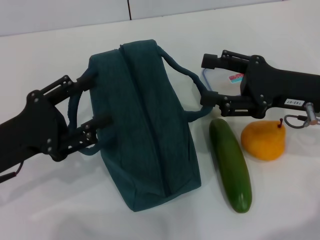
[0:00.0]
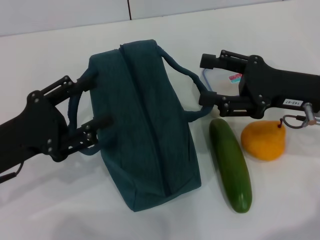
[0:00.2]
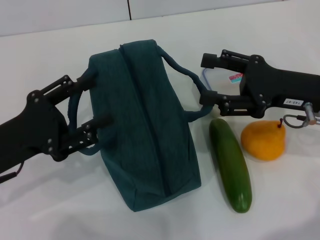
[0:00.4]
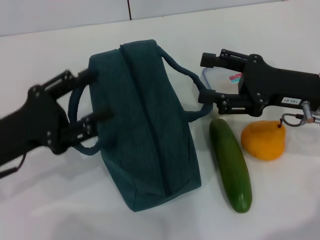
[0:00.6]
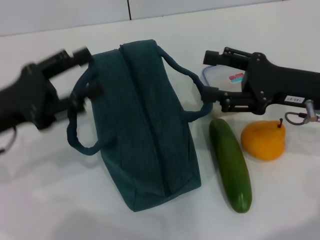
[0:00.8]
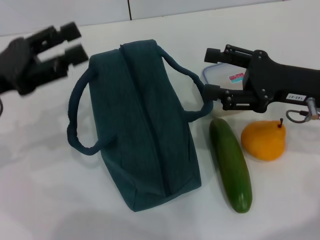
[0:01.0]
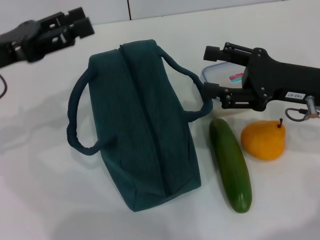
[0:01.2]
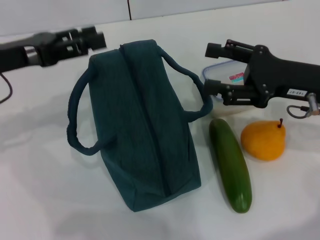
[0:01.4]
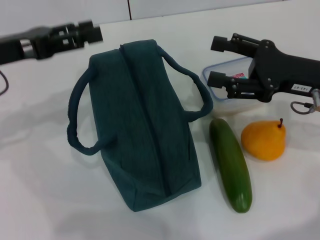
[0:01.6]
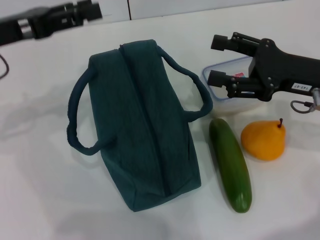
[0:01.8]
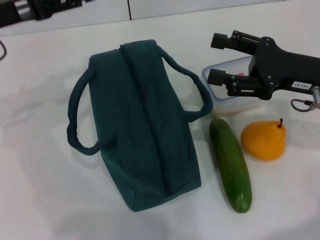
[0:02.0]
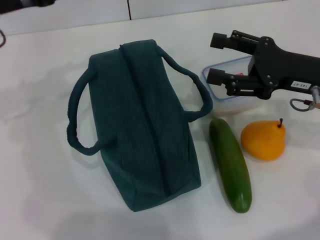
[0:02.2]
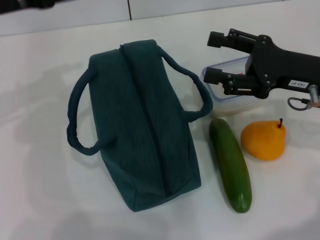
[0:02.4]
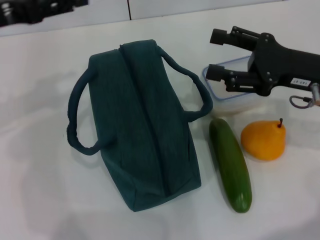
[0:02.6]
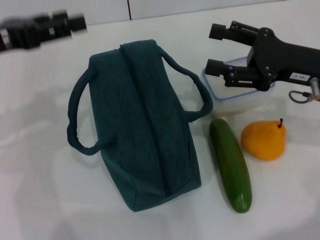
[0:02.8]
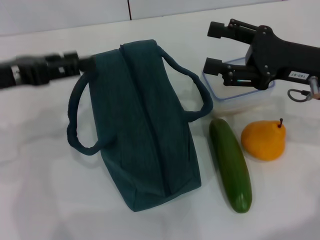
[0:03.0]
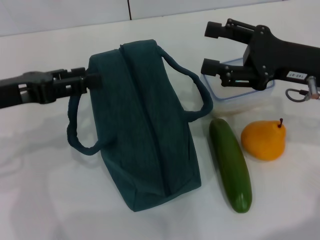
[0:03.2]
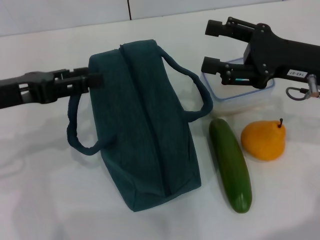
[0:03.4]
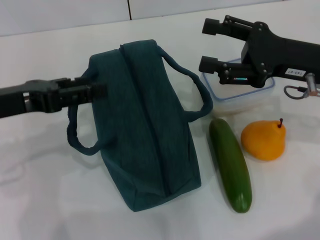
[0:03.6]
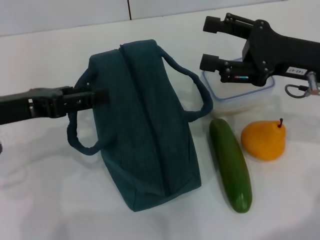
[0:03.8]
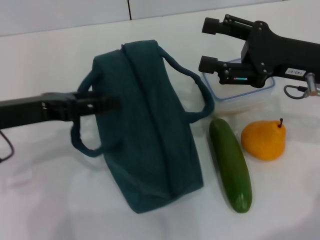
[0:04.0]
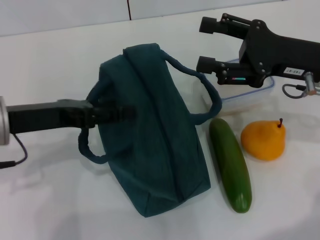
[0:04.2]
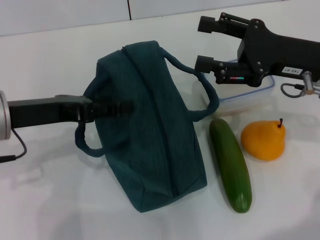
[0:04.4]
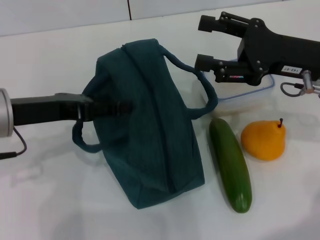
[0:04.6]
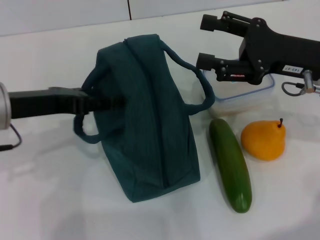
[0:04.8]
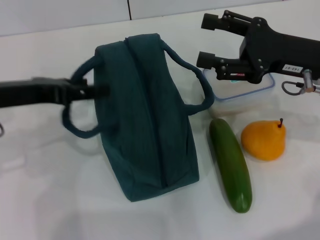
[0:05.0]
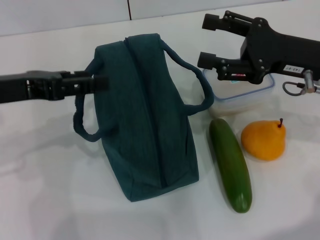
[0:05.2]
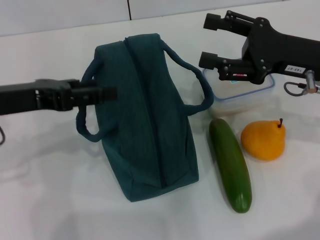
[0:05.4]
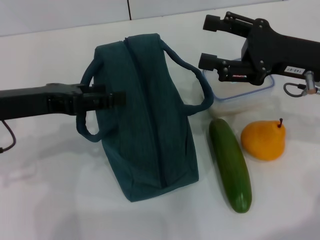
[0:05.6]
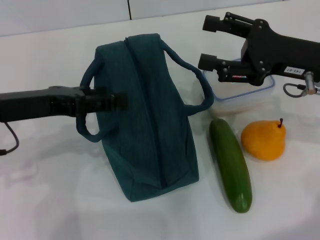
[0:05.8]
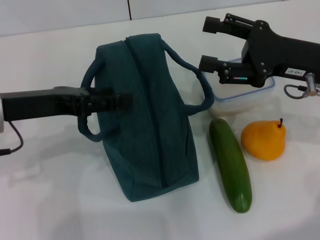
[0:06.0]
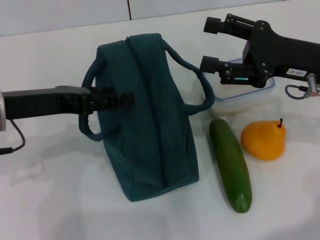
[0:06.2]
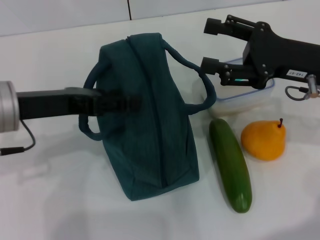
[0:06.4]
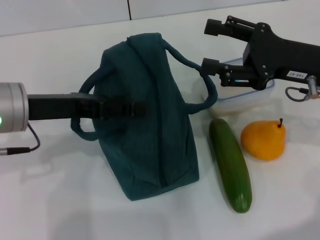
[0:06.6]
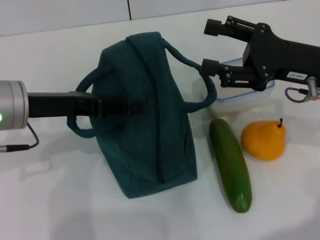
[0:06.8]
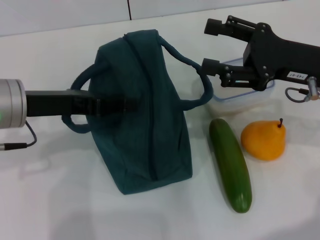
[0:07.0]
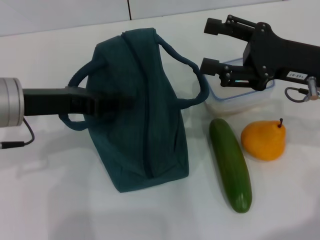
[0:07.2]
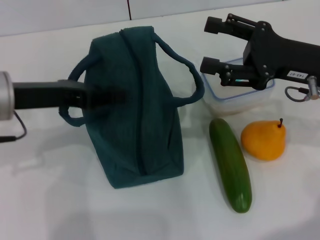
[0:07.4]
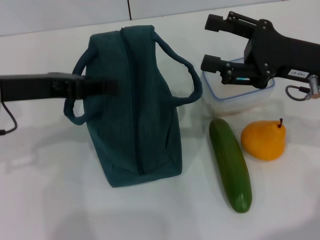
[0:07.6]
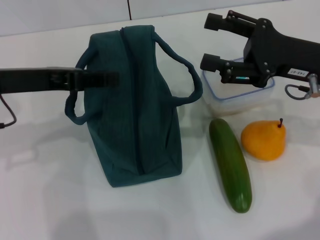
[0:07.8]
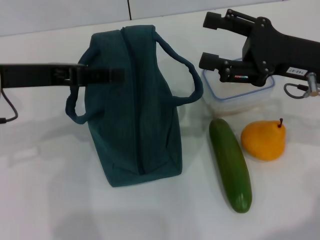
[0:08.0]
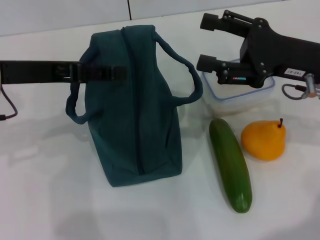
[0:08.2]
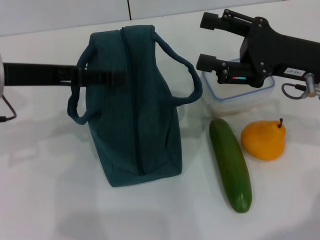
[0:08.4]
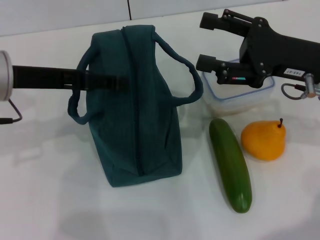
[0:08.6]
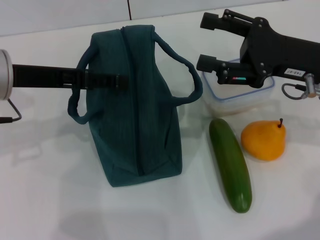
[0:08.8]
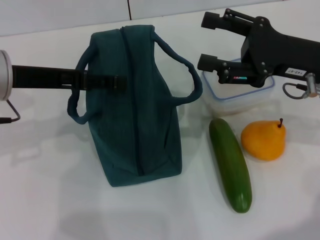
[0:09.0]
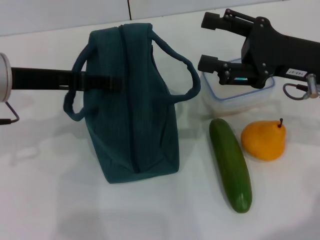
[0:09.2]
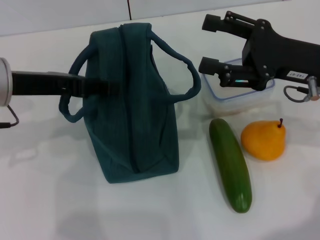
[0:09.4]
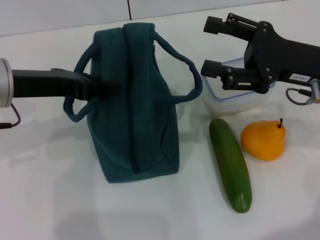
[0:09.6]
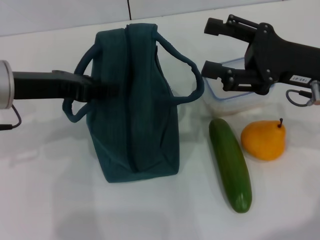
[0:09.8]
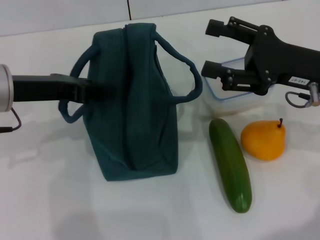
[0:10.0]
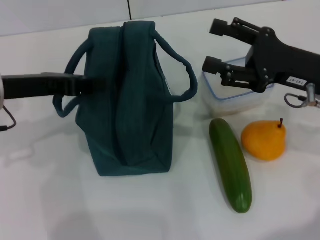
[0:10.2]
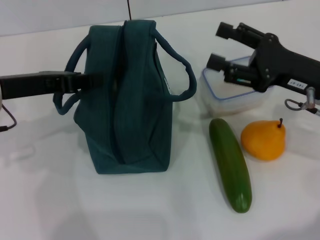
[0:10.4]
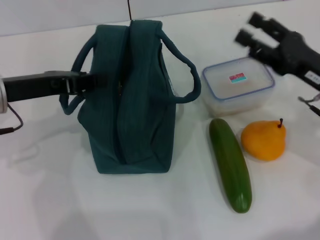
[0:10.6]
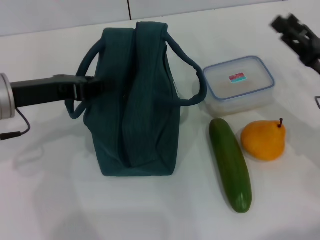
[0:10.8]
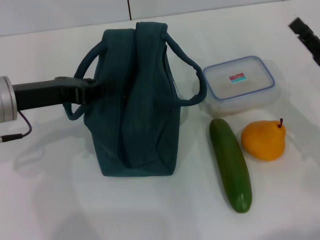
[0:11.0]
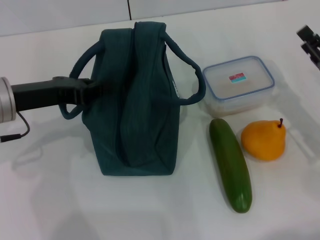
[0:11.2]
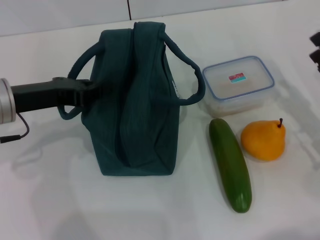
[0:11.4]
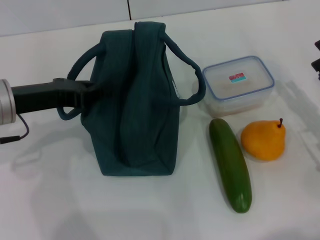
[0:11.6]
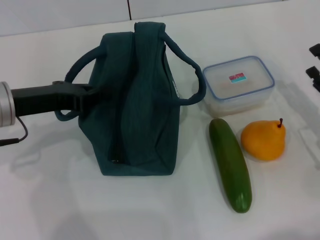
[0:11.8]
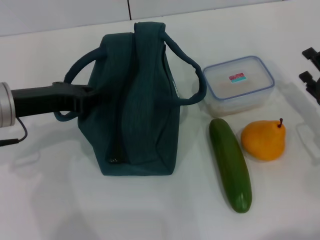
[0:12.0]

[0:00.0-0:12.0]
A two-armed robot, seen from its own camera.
Step, 0:00.0 to 0:10.2: Hold the lunch bag with your left hand.
0:00.0 to 0:01.6: The left gripper heads forward and upward, covering approximately 15 cm.
0:01.6 to 0:03.0: The grippers make only small movements.
0:03.0 to 0:04.4: The left gripper moves approximately 5 cm.
0:04.4 to 0:06.0: There are only small adjustments of the grippers.
0:06.0 to 0:07.6: The left gripper closes up.
0:07.6 to 0:09.0: The left gripper opens.
0:09.0 to 0:10.4: The left gripper closes its fingers.
0:10.4 to 0:12.0: The right gripper travels downward and to the right by roughly 10 cm.

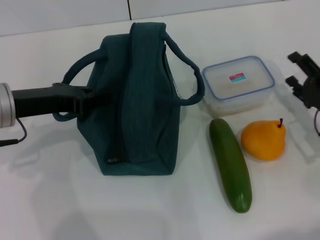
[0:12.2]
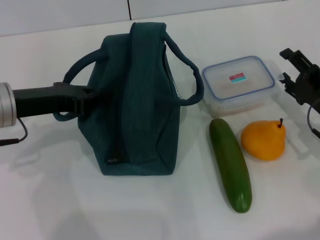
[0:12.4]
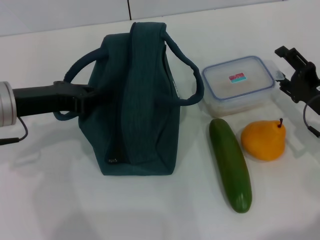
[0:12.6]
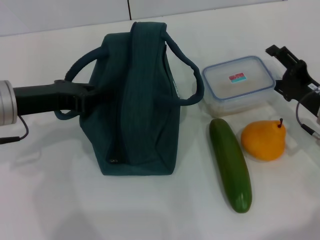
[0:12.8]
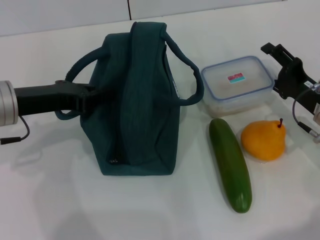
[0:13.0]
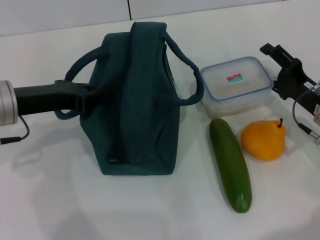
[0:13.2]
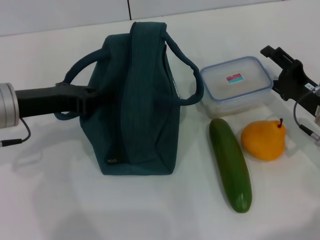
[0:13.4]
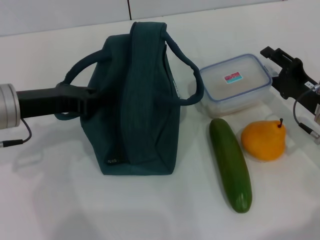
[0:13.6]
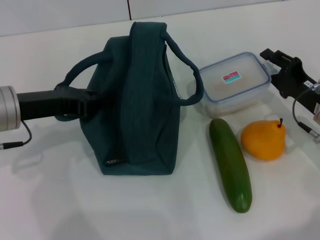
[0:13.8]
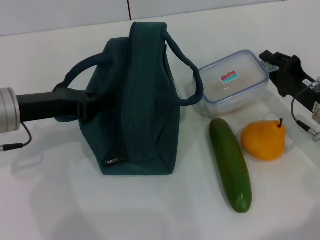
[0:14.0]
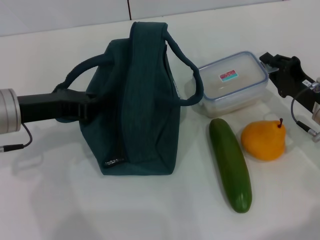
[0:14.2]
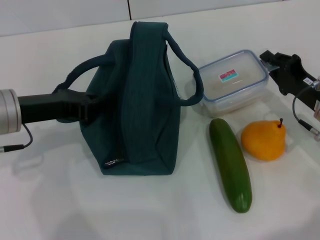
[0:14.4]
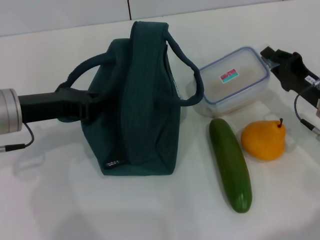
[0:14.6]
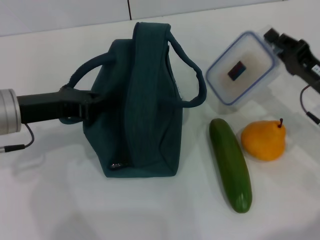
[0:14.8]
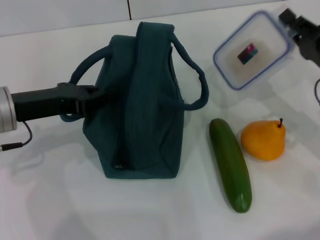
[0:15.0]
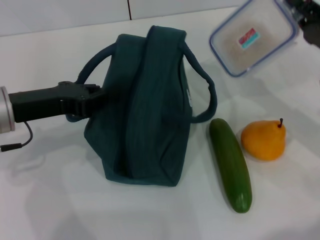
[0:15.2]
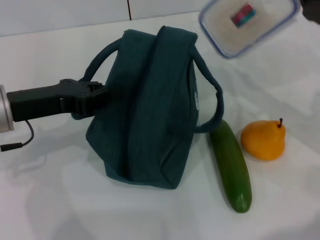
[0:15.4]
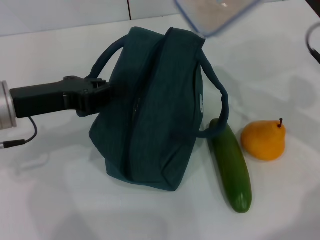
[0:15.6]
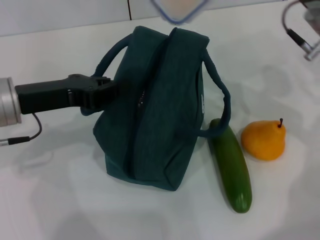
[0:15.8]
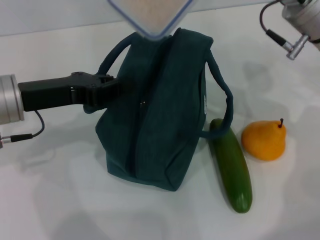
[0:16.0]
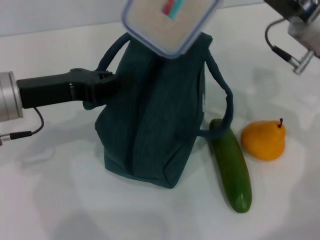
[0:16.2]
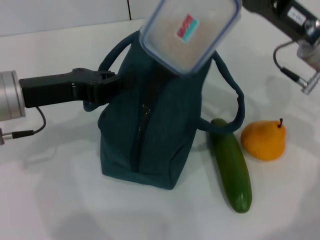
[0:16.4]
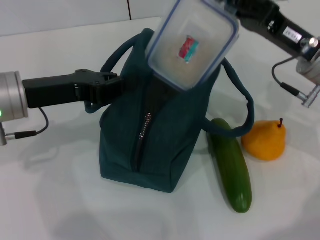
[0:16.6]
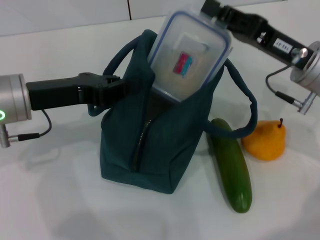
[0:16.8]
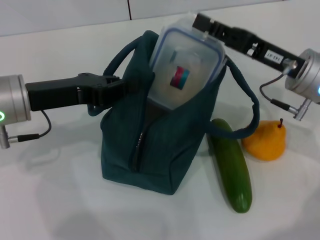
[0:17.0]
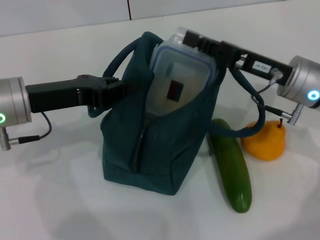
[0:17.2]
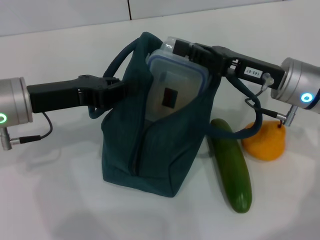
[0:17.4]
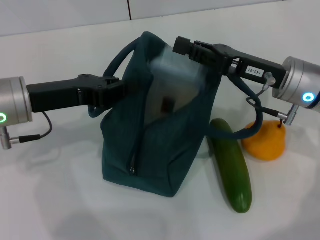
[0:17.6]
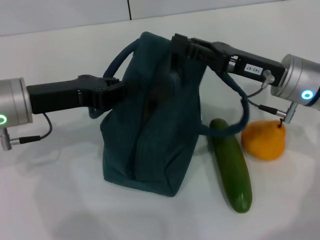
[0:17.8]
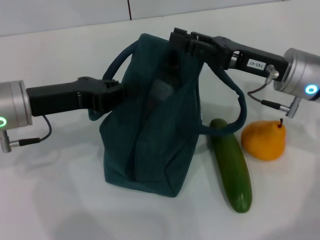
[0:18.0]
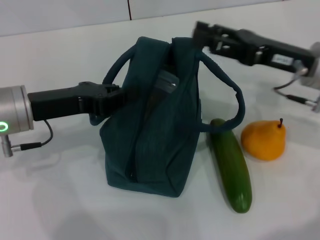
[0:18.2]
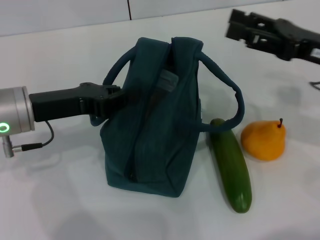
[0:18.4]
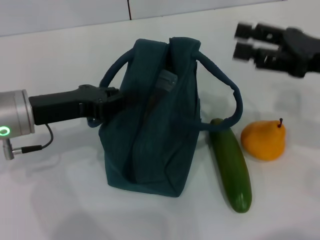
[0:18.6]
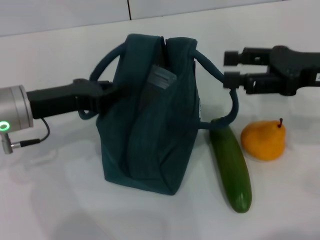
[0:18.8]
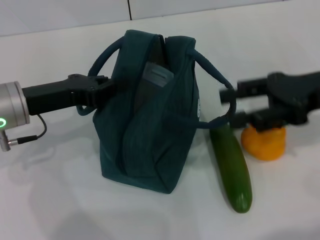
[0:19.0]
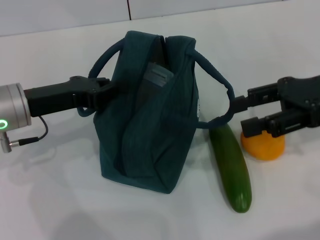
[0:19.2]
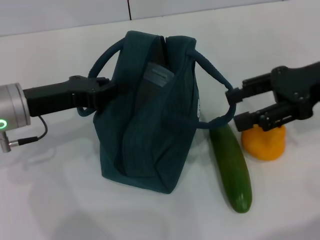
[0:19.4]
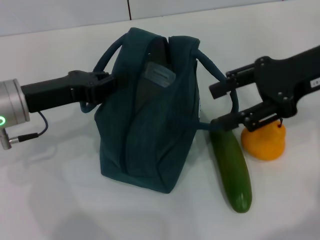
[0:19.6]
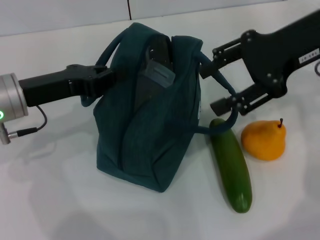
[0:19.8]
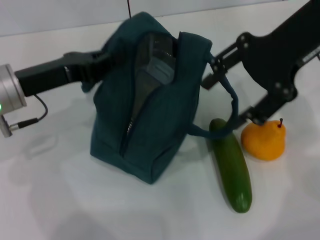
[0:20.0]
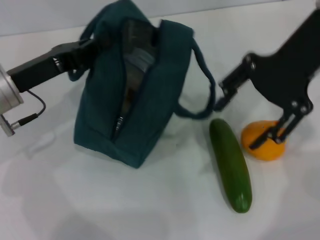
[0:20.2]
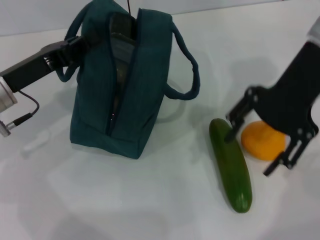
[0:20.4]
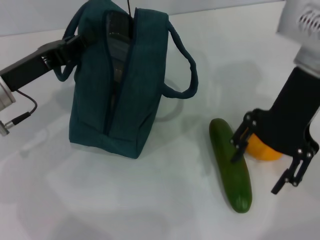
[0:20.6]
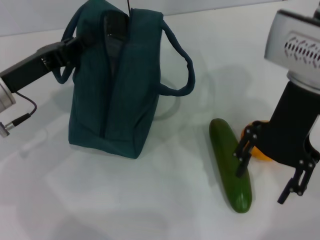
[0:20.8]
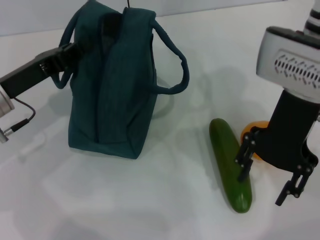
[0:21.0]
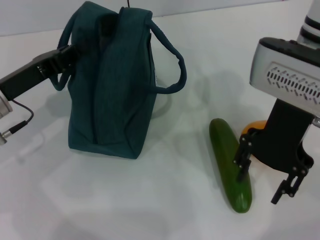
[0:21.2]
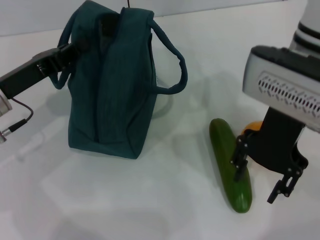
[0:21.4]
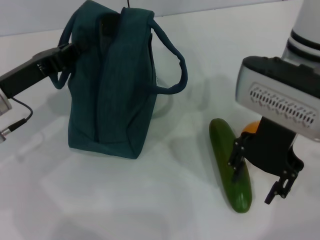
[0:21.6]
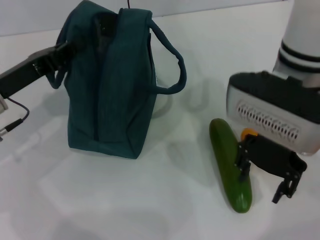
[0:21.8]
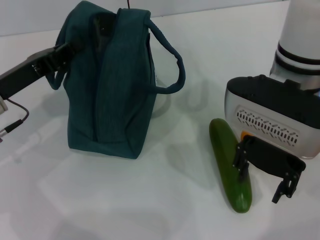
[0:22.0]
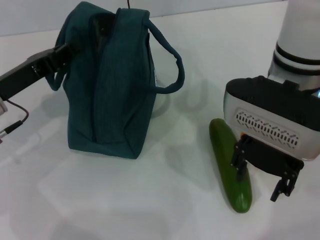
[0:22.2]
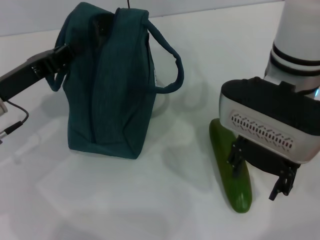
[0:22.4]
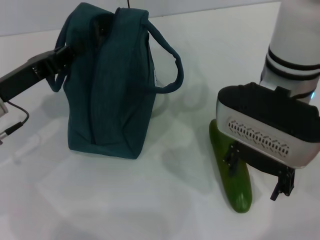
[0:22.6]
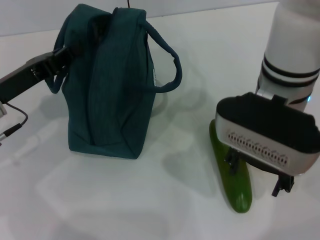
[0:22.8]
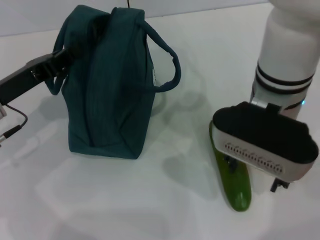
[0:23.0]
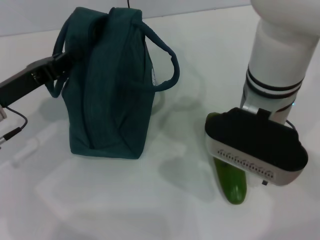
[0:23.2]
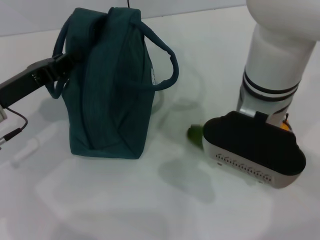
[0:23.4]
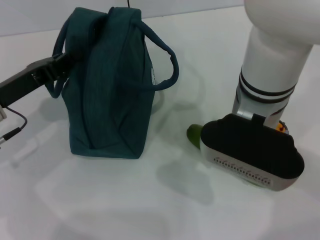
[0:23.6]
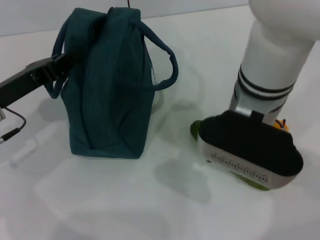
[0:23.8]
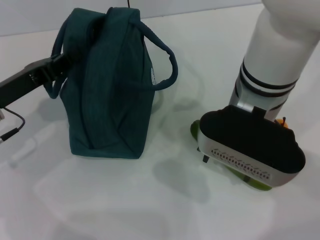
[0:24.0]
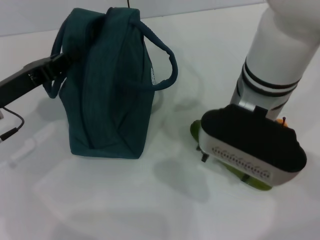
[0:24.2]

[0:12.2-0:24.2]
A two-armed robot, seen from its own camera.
Step, 0:12.2 to 0:14.4: Pick up the lunch box with your right hand.
Step, 0:14.6 to 0:17.6: Place the lunch box into the lunch bag with your right hand.
0:12.2 to 0:13.8: The grippers make only small movements.
0:13.8 to 0:15.2: The right gripper travels upward by roughly 5 cm, and closes.
0:15.2 to 0:16.6: The right gripper moves to the left, roughly 5 cm.
0:16.6 to 0:18.2: The right gripper opens its fingers.
0:18.2 to 0:19.8: The right gripper goes about 10 cm upward.
0:19.8 to 0:21.2: The right gripper goes some 10 cm to the left.
0:21.2 to 0:22.6: The grippers move only a little.
